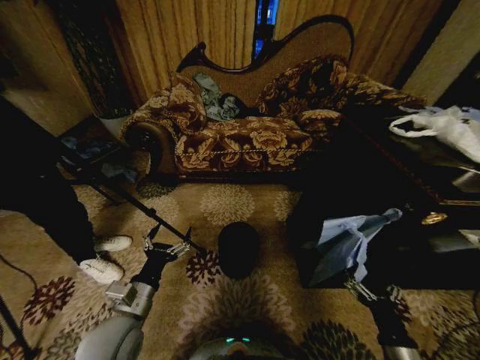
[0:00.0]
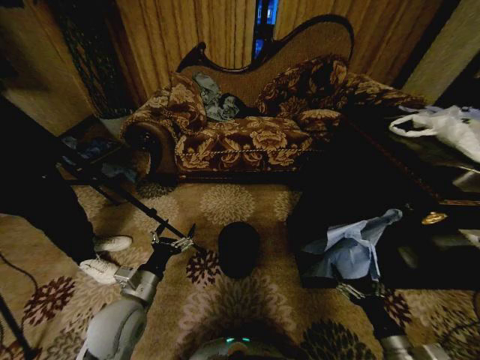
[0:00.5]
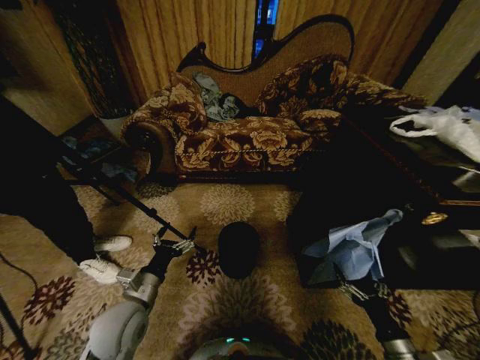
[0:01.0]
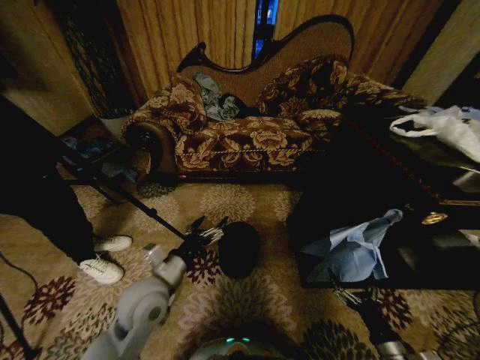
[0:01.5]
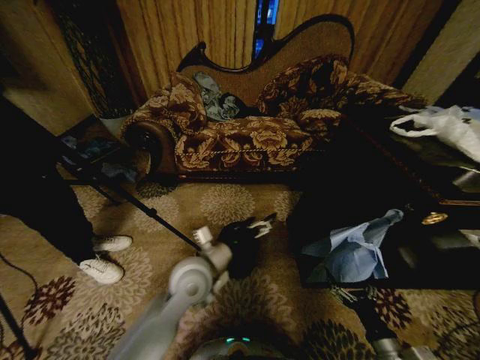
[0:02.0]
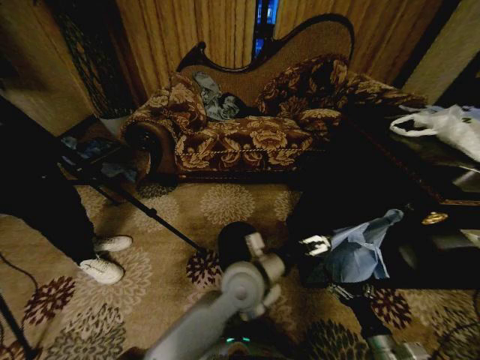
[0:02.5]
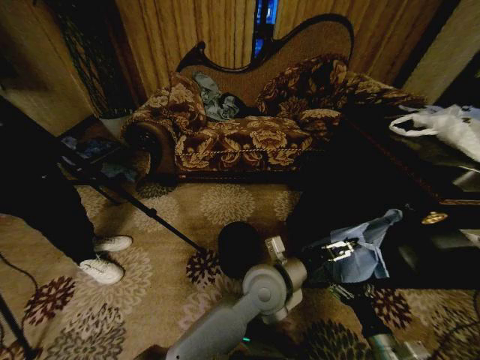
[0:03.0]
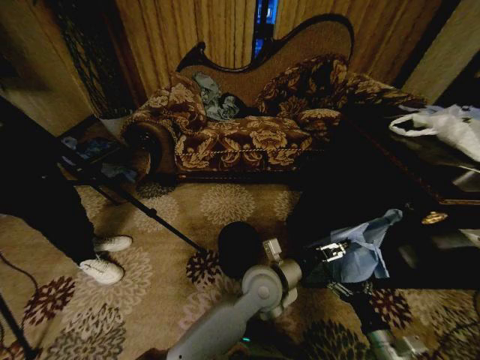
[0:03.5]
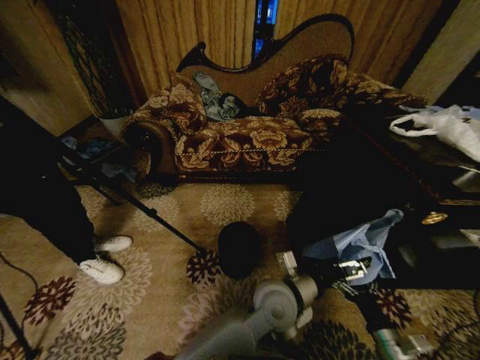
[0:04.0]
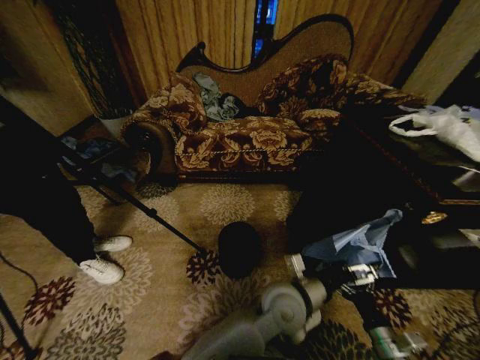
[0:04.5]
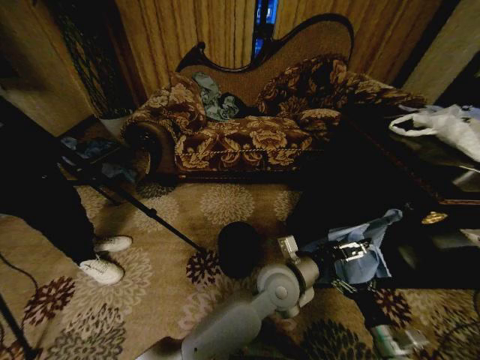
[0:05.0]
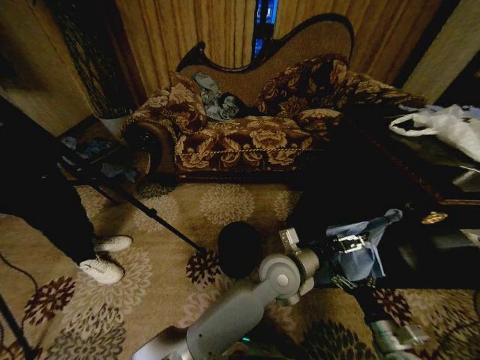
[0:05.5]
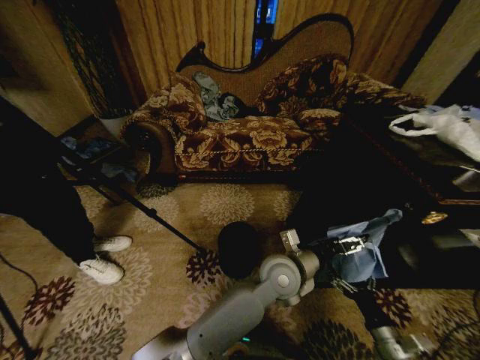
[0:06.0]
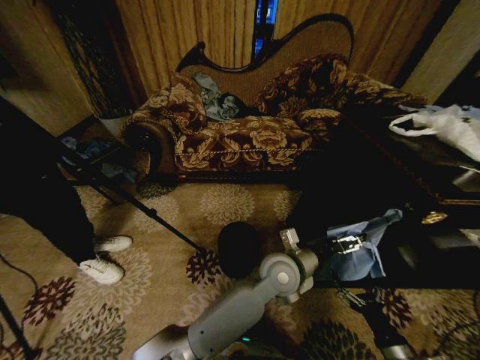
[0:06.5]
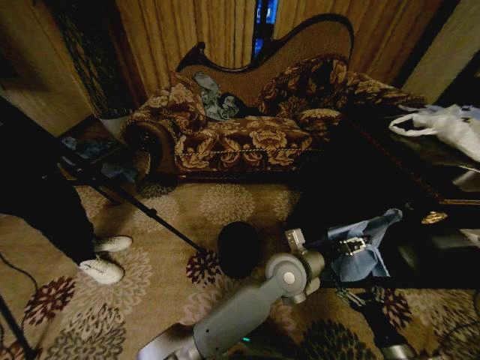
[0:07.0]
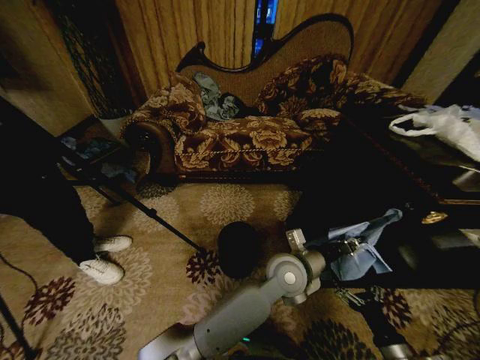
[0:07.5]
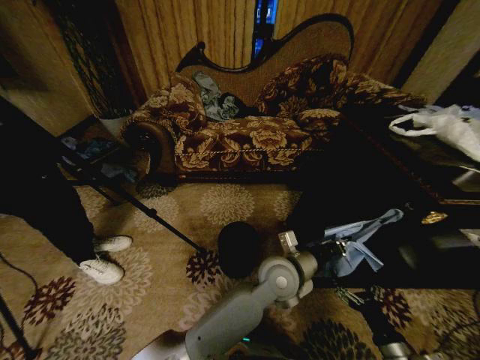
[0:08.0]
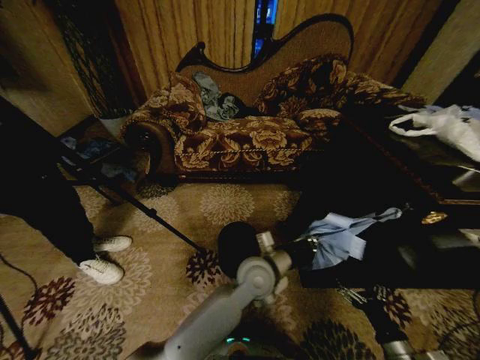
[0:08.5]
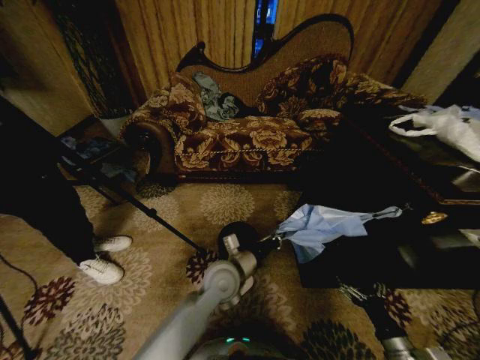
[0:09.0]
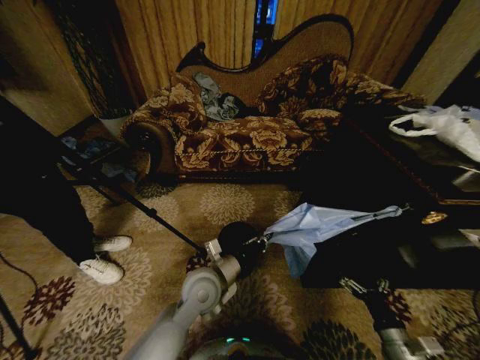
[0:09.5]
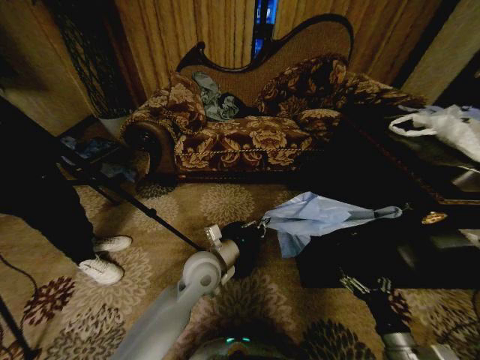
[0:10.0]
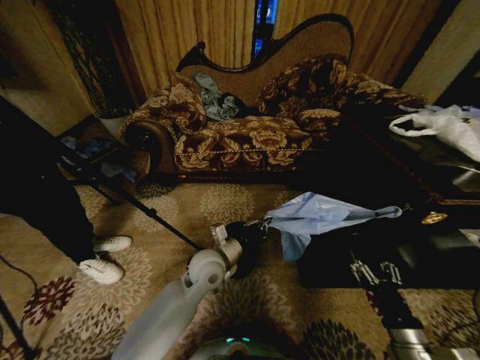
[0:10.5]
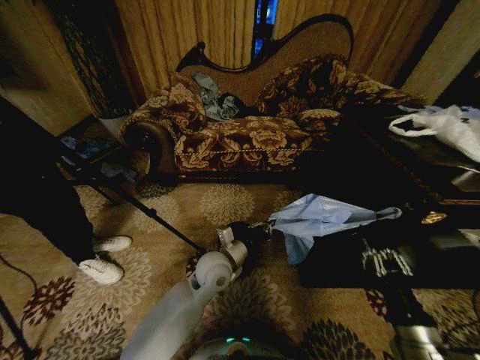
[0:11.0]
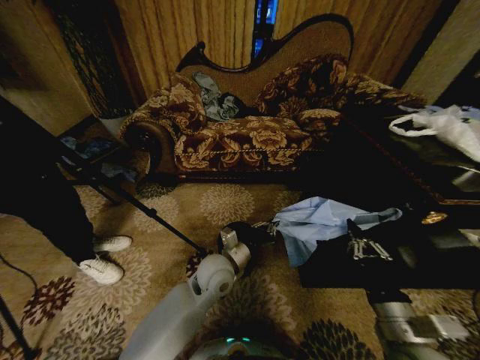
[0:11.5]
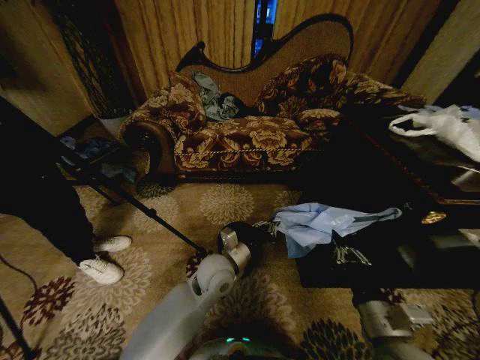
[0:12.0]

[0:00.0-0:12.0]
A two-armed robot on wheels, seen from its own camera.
Task of the whole recording: Place a garbage bag over the trash bin.
0:02.0 to 0:04.0: The left gripper shifts about 20 cm to the right.
0:04.0 to 0:06.0: The left gripper shifts some 5 cm forward.
0:06.0 to 0:08.0: The left gripper closes.
0:08.0 to 0:10.0: The left gripper moves to the left, about 20 cm.
0:10.0 to 0:12.0: The right gripper is displaced upward and to the left by some 15 cm, and closes its fingers.

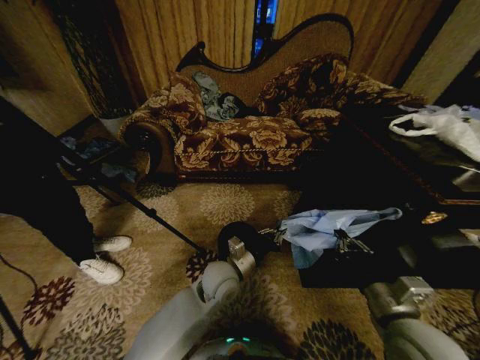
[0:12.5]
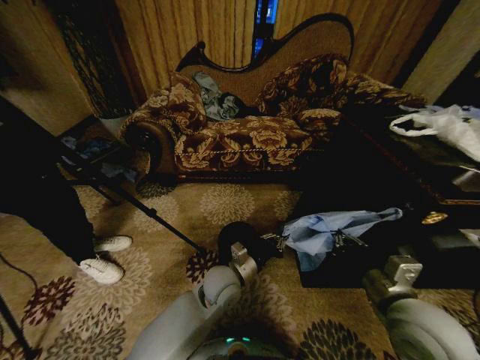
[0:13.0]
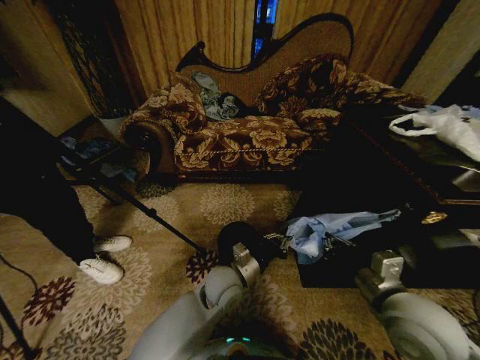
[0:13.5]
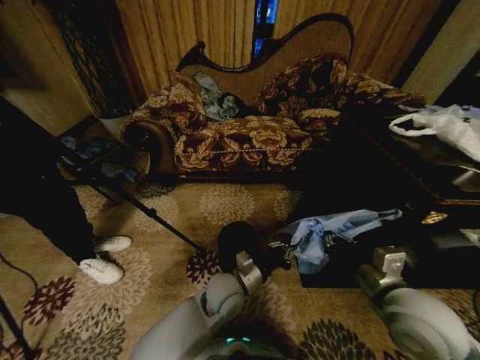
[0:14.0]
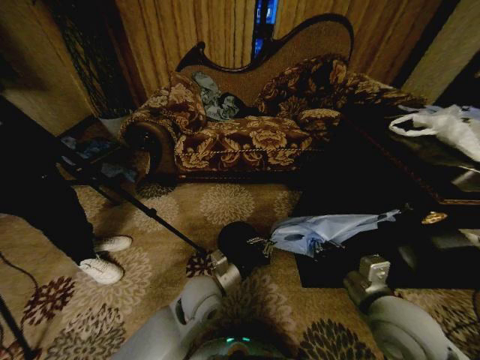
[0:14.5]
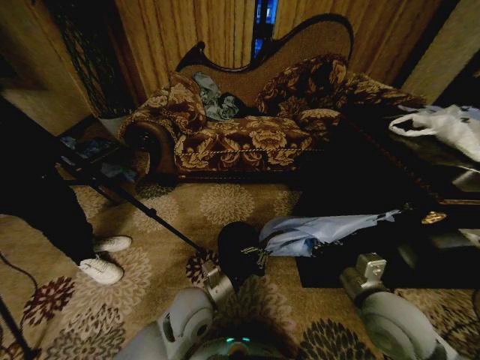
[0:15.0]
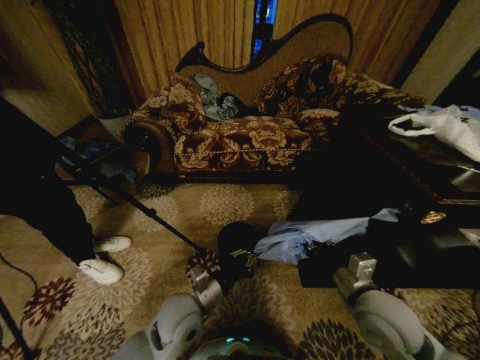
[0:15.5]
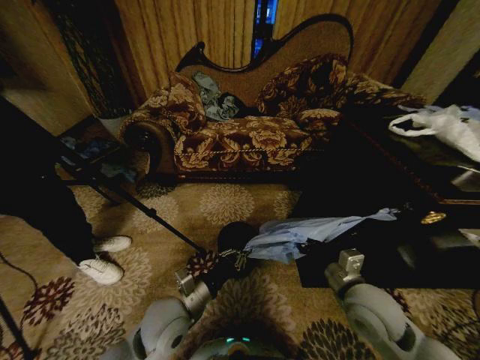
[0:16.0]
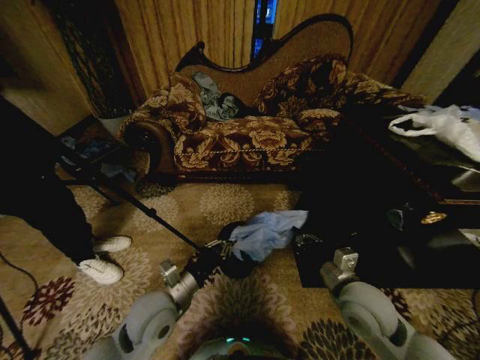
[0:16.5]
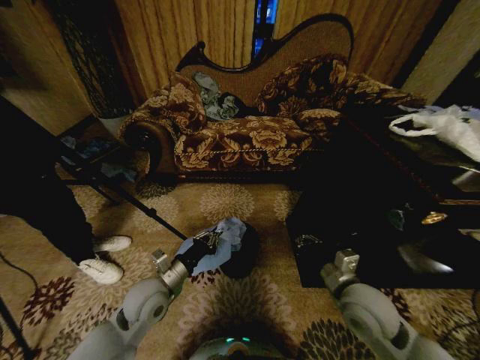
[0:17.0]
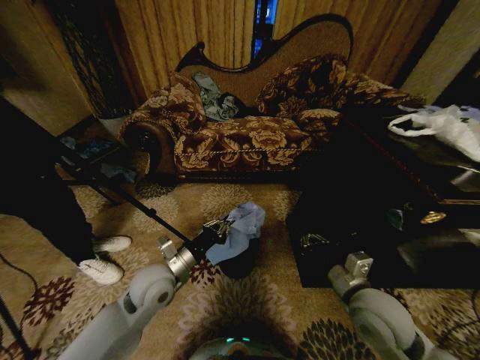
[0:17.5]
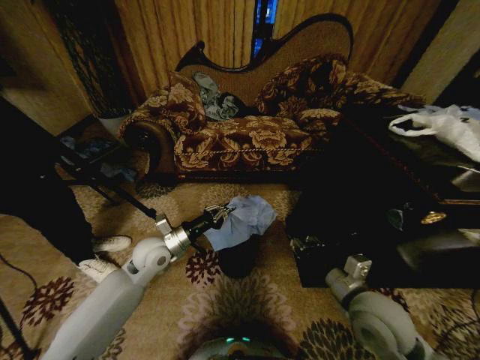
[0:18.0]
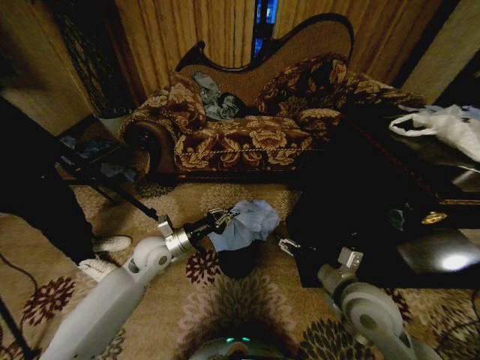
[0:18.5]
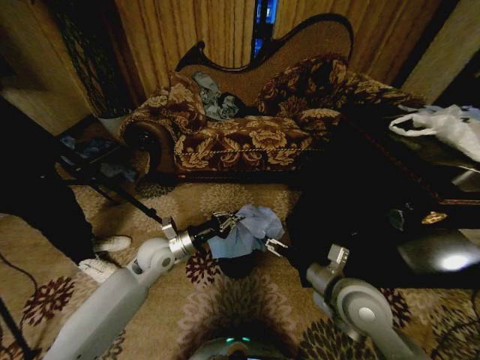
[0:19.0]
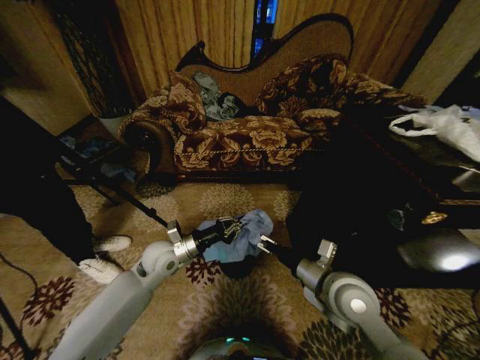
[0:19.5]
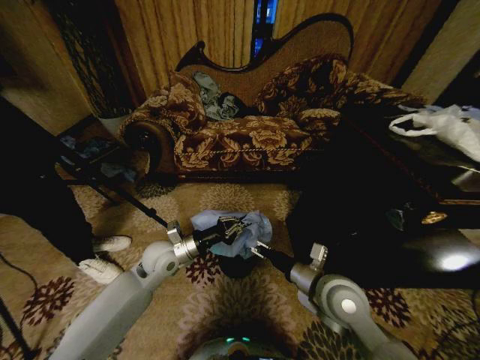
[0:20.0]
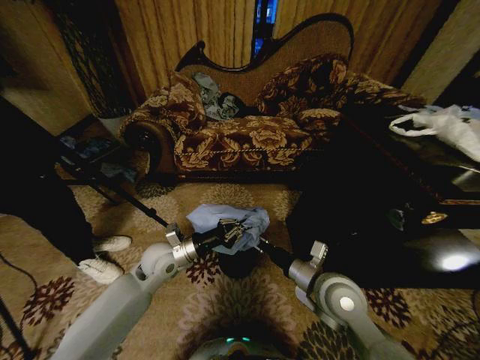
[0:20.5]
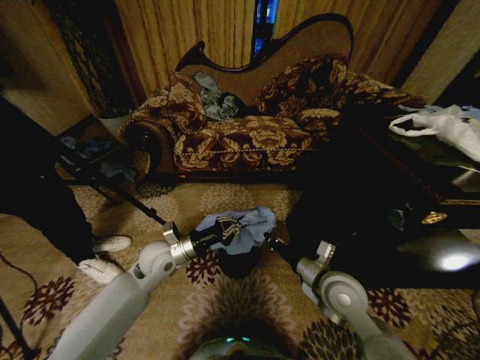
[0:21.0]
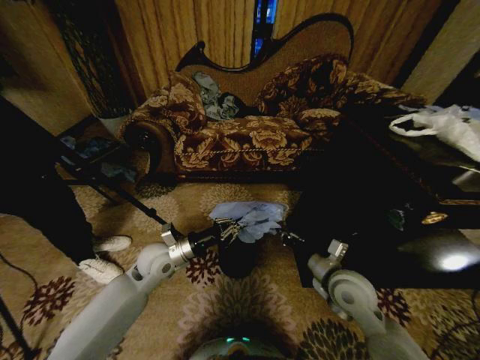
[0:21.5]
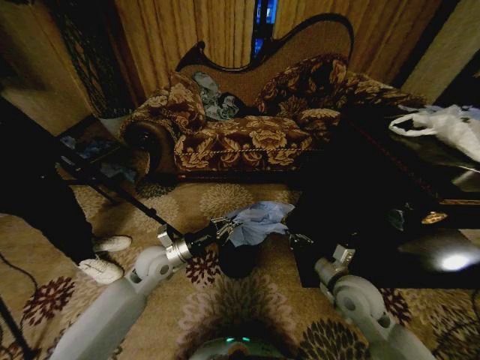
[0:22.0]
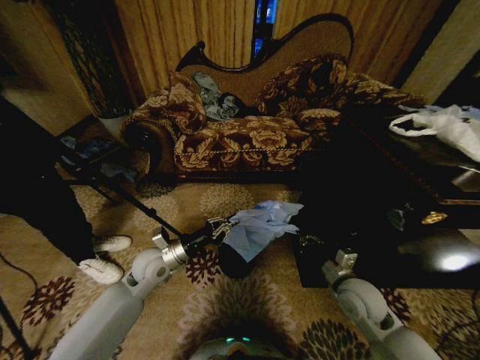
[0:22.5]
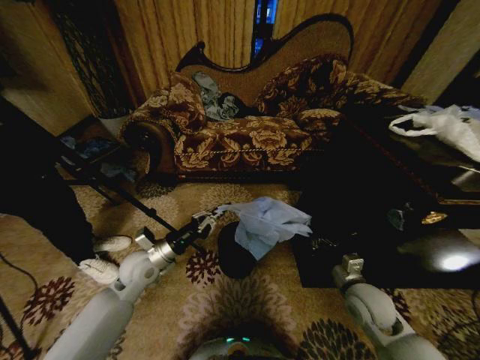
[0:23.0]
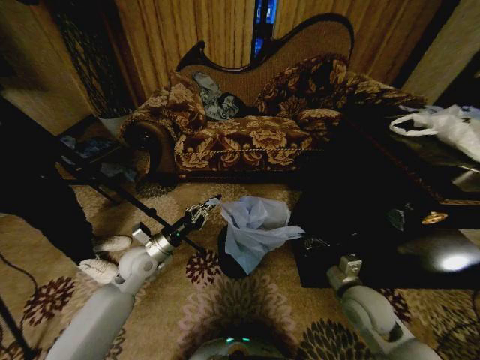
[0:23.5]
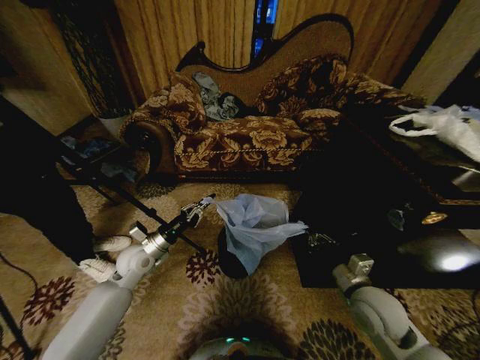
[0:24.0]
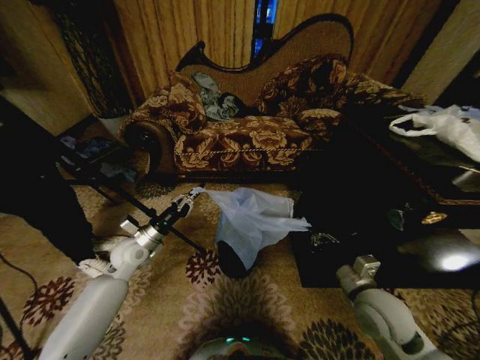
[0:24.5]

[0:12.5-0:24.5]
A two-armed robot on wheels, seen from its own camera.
Task of the whole recording: Place a garbage bag over the trash bin.
0:12.5 to 0:14.5: The left gripper shifts by some 5 cm.
0:14.5 to 0:16.5: The right gripper moves some 5 cm, while the left gripper is displaced to the left by some 10 cm.
0:16.5 to 0:18.5: The right gripper opens. The left gripper heads forward, covering approximately 15 cm.
0:18.5 to 0:20.5: The right gripper changes place by roughly 5 cm, and closes its fingers.
0:20.5 to 0:22.5: The right gripper goes roughly 10 cm to the right and downward, and closes.
0:22.5 to 0:24.5: The right gripper ends up approximately 5 cm from where it was, while the left gripper moves to the left, roughly 10 cm.

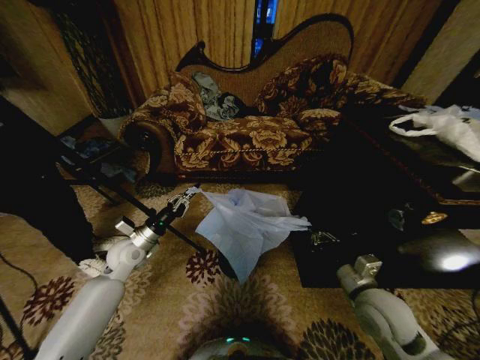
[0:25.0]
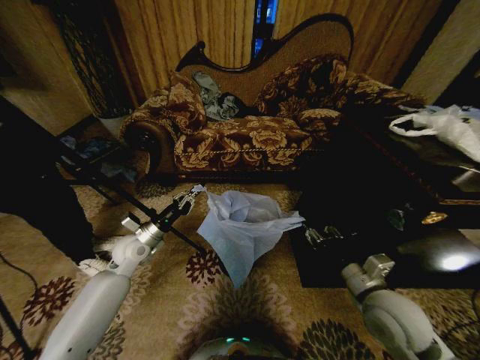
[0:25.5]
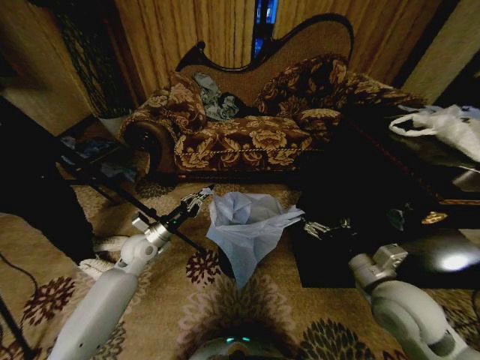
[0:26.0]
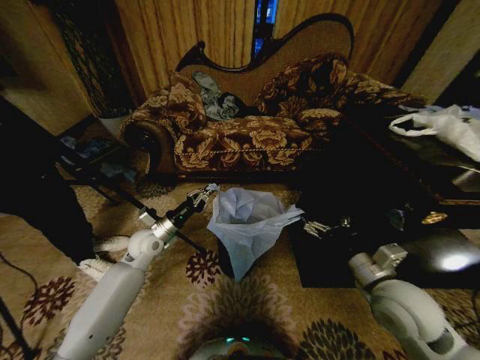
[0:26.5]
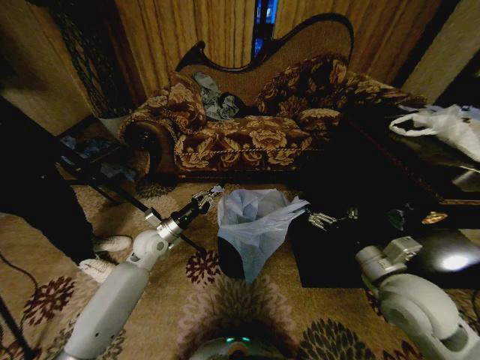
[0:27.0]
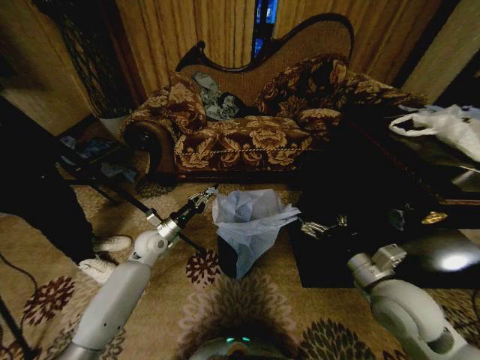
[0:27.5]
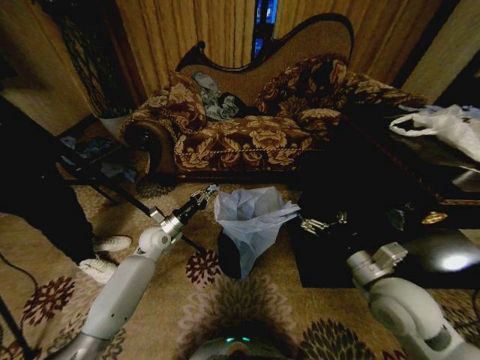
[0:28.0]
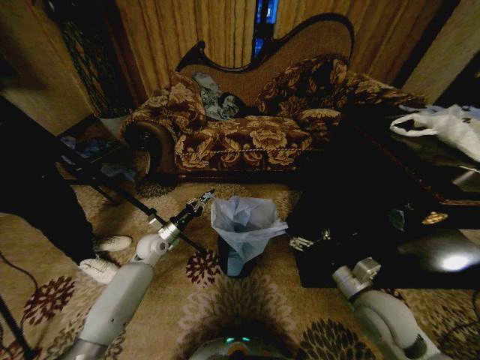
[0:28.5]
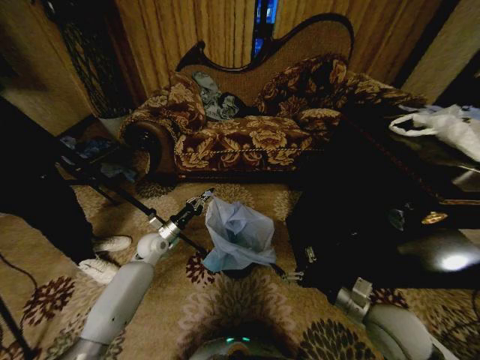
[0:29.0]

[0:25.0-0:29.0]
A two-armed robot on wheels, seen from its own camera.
Task of the whole recording: Place a garbage bag over the trash bin.
0:25.0 to 0:27.0: The right gripper heads upward, covering about 10 cm, and opens. The left gripper heads to the right, covering some 5 cm.
0:27.0 to 0:29.0: The grippers both shift downward by approximately 10 cm.
